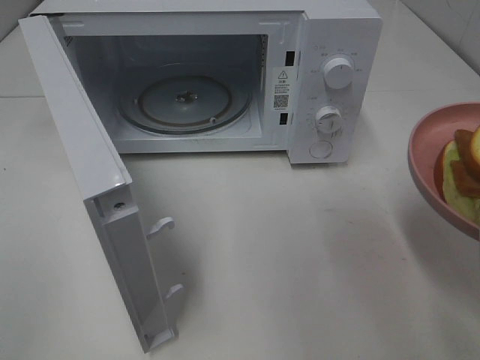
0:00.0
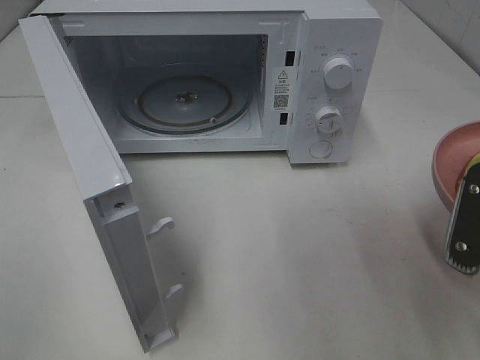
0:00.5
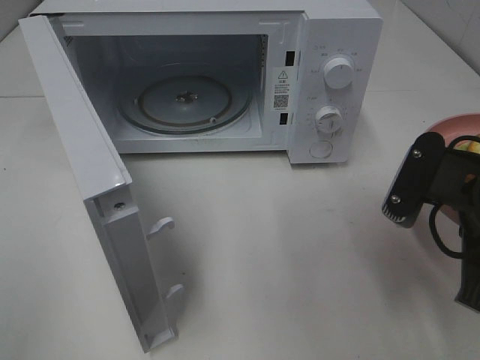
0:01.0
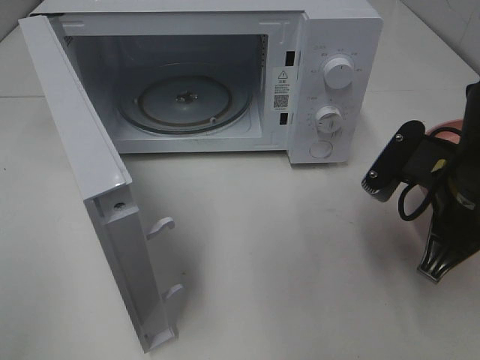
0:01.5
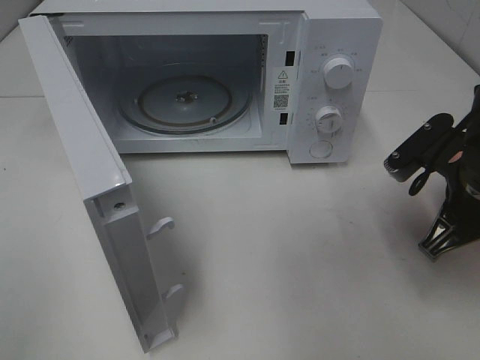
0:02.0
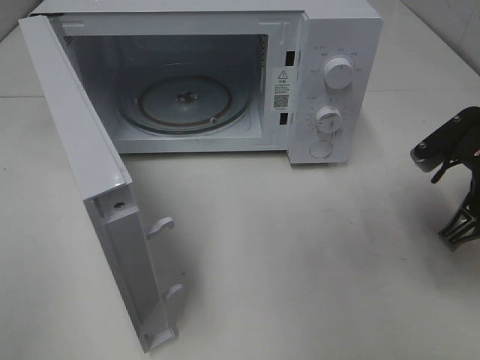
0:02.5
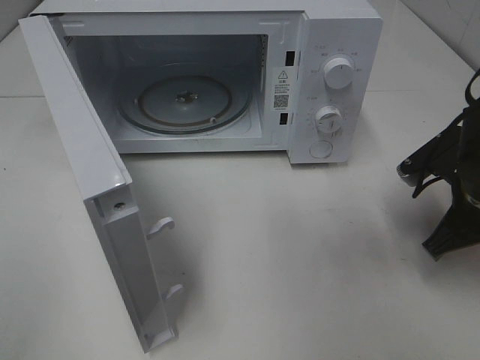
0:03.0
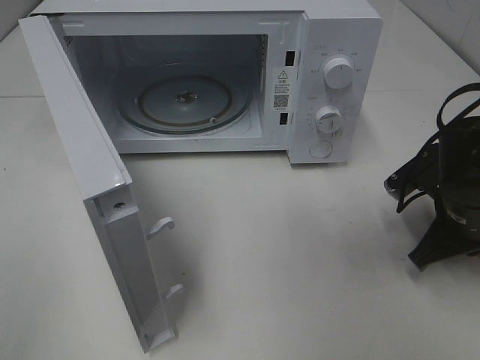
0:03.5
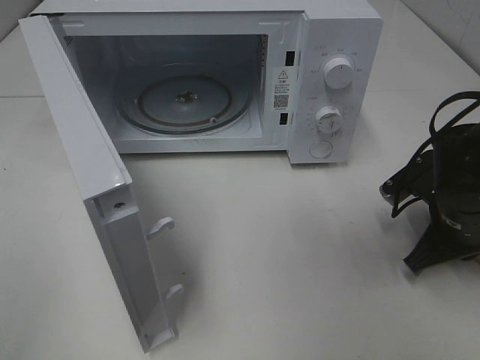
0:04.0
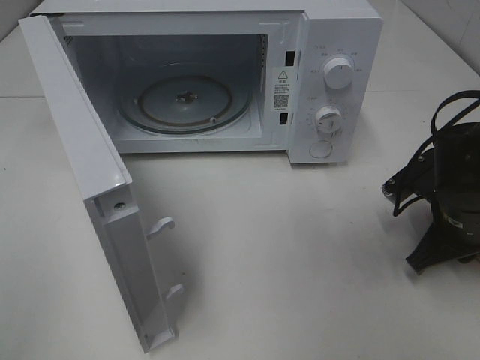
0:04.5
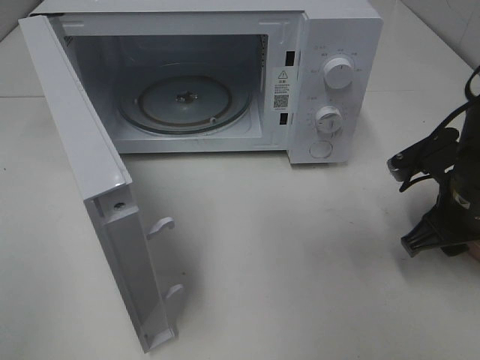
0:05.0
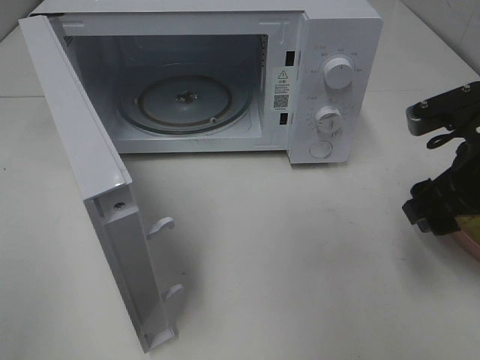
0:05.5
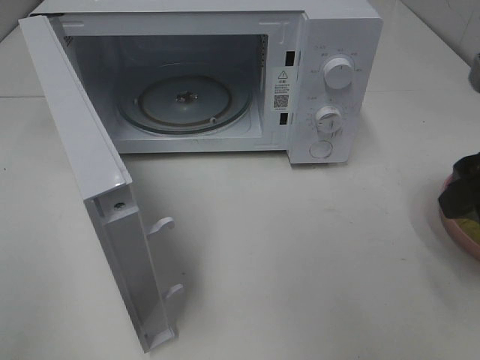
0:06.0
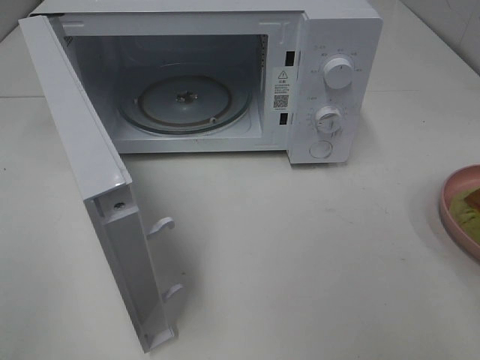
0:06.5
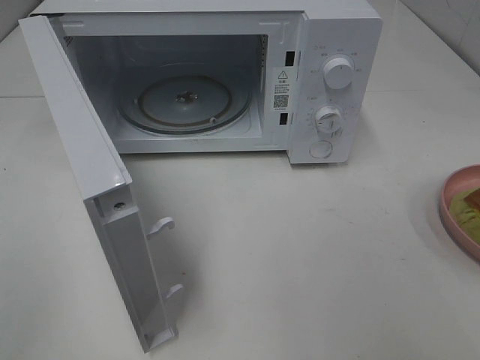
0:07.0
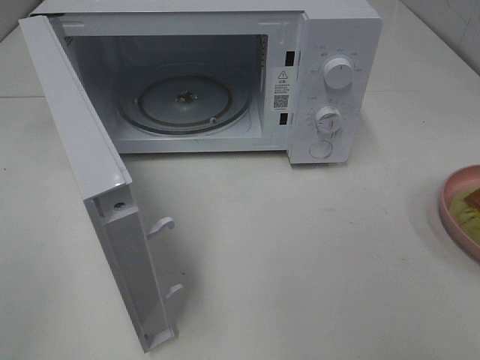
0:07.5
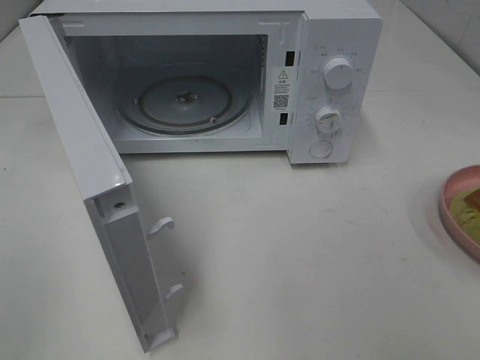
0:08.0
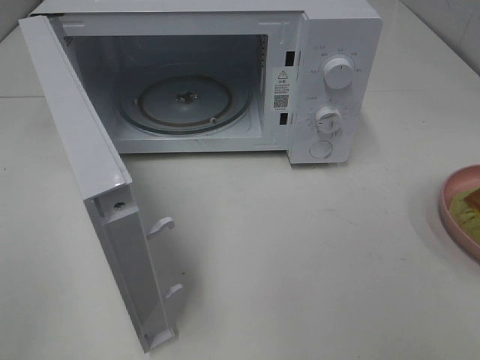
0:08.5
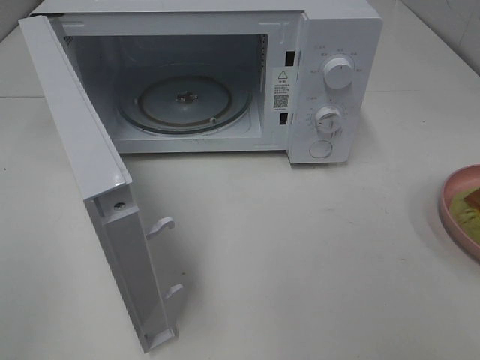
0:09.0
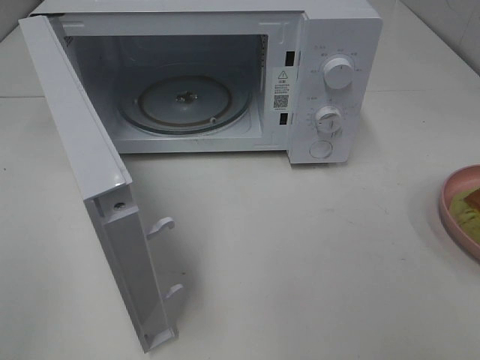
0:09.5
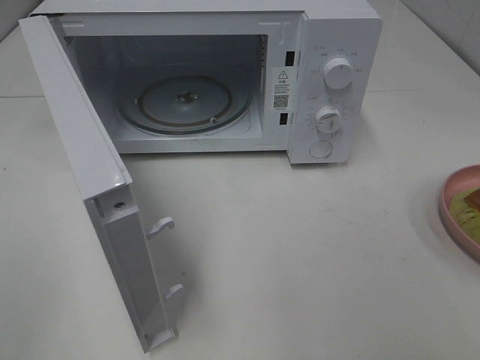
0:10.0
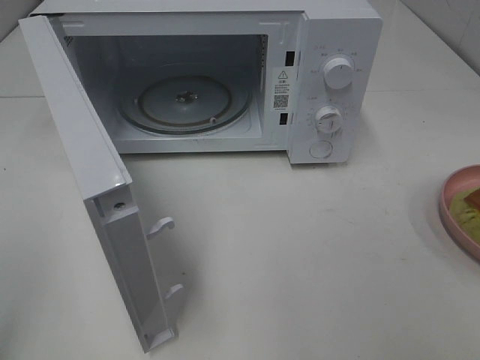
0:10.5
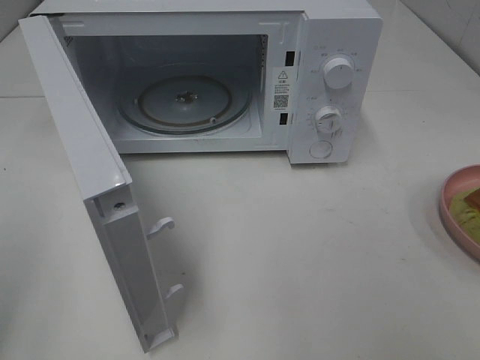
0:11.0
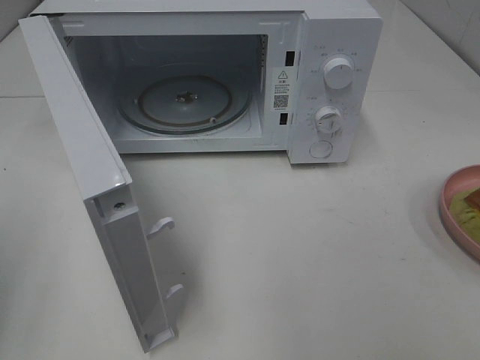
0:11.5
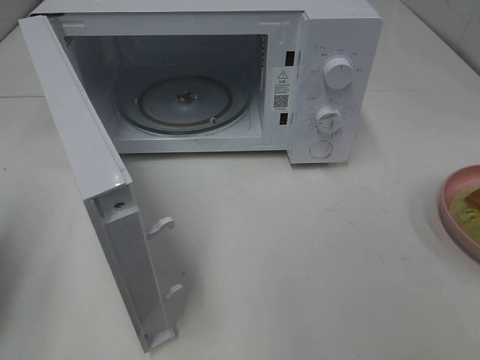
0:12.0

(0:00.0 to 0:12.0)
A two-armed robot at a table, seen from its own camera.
Task of the whole recording: Heat Sandwich.
Step, 0:00.0 - 0:05.5: Right hand: place the plate on the table.
0:00.0 - 0:02.0: The right gripper is displaced forward and downward by about 15 cm.
0:02.0 - 0:04.0: The right gripper moves downward, some 5 cm.
0:04.0 - 0:06.0: The right gripper travels upward and backward by approximately 20 cm, and opens up.
0:06.0 - 0:08.0: The right gripper travels backward by about 20 cm.
0:08.0 - 0:10.0: The two grippers keep their place.
0:10.0 - 0:12.0: The left gripper moves forward and downward, some 20 cm, and closes its fingers.

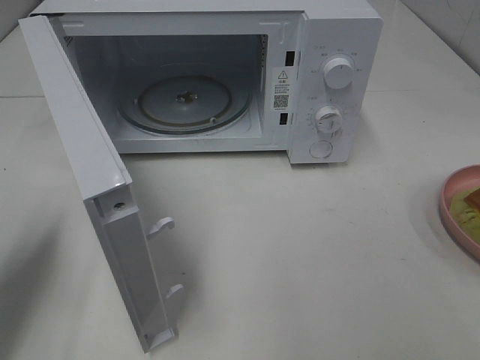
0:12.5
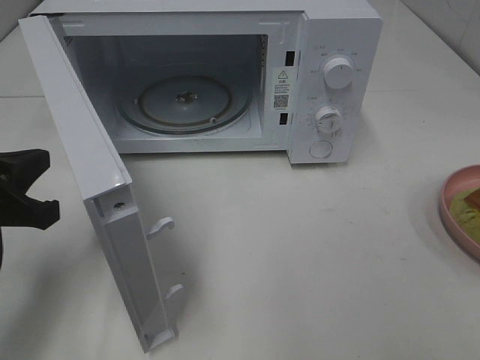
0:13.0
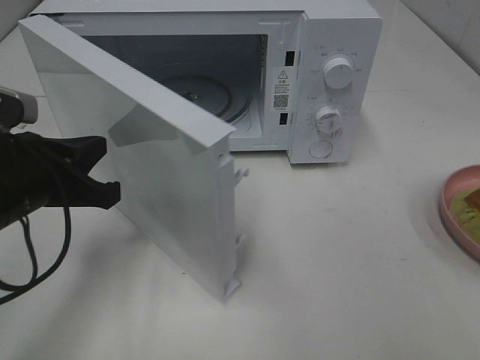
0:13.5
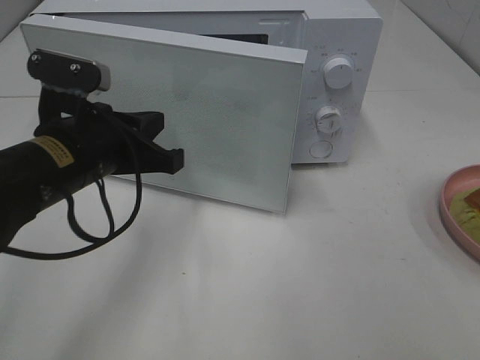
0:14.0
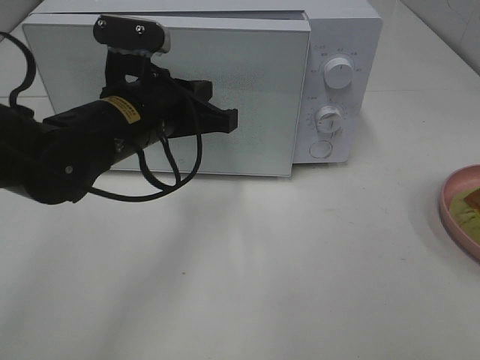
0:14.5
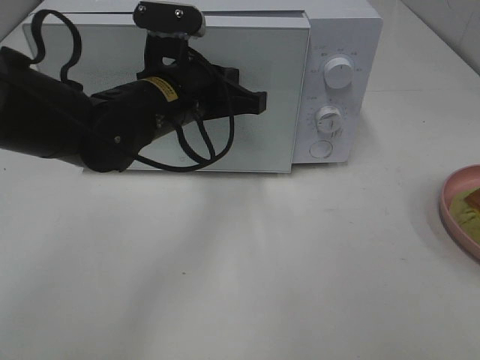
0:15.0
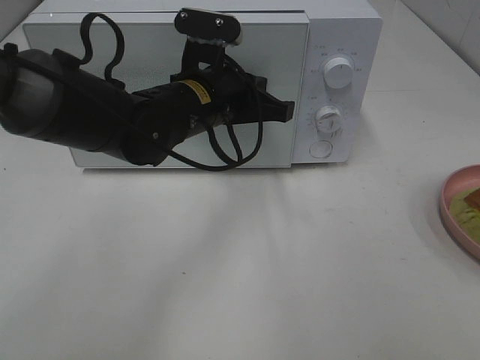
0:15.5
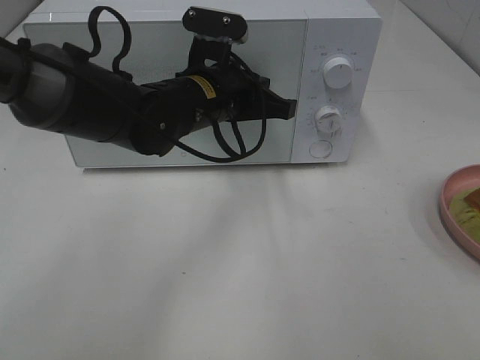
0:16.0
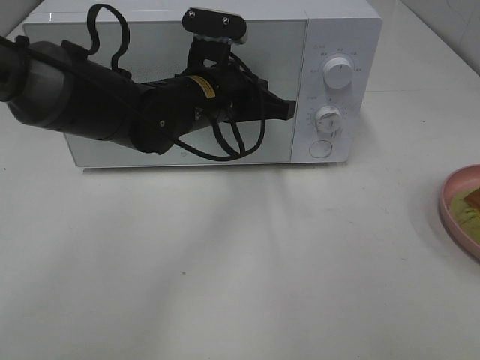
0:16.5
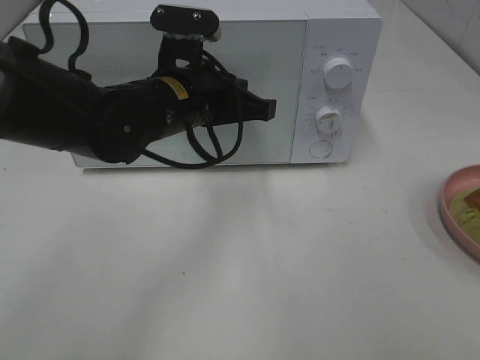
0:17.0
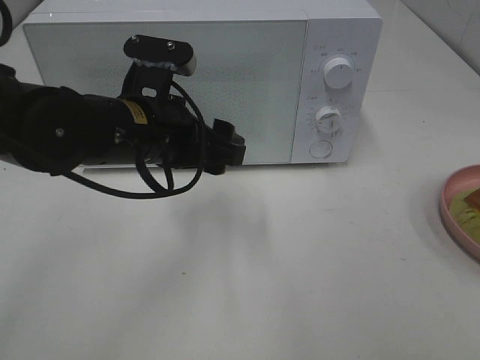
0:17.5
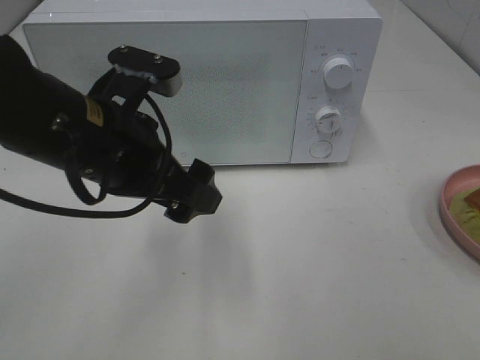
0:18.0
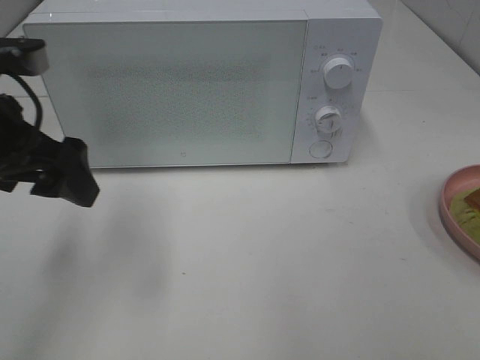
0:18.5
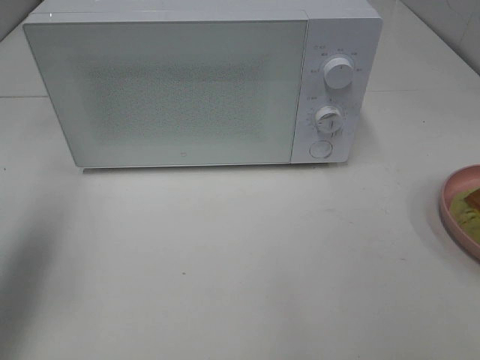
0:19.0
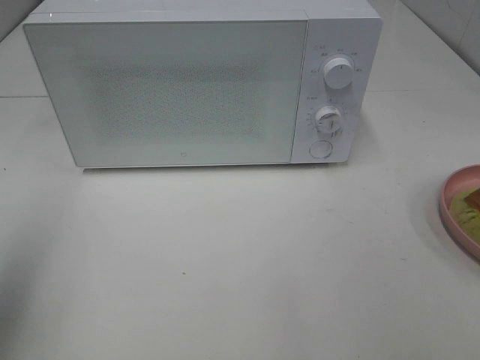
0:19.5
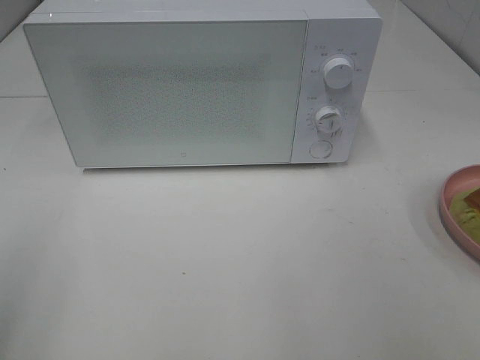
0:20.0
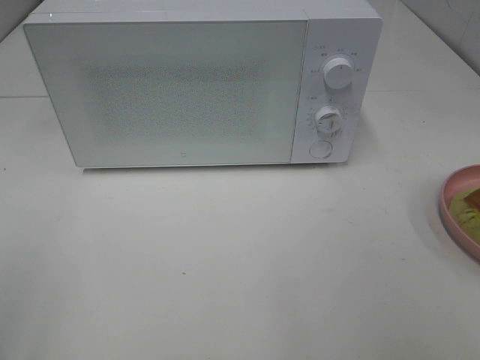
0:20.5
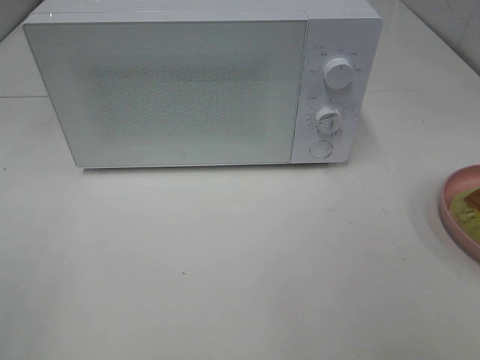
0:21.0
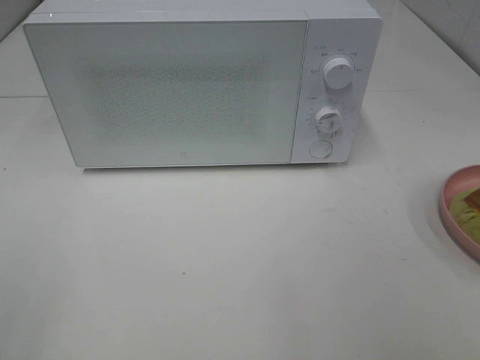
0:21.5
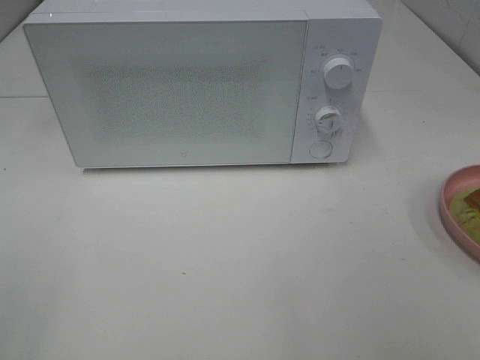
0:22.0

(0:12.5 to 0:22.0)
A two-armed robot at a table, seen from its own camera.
Task of the whole recording: Heat Sandwich.
Step, 0:12.5 - 0:16.5: Left hand: close the microwave door.
0:12.5 - 0:14.5: The left gripper is displaced to the right and forward by approximately 25 cm.
0:14.5 - 0:16.5: The left gripper is displaced to the right and forward by approximately 10 cm.
0:16.5 - 0:18.0: The left gripper heads backward and to the left, covering some 15 cm, and opens up.
0:18.0 - 0:20.0: The left gripper shifts some 25 cm to the left and backward.

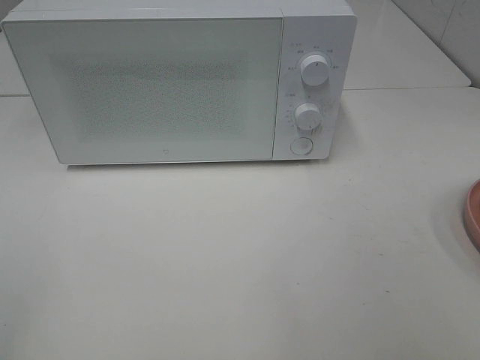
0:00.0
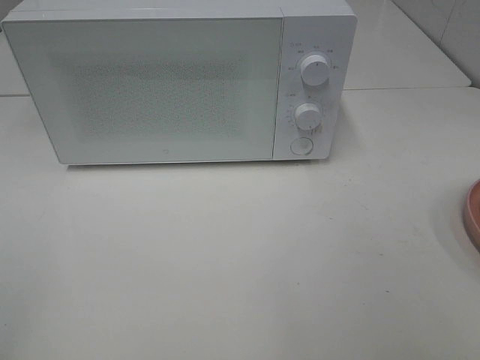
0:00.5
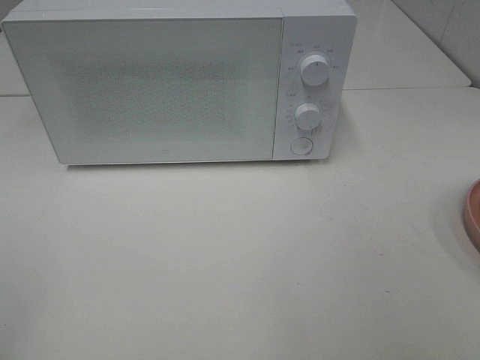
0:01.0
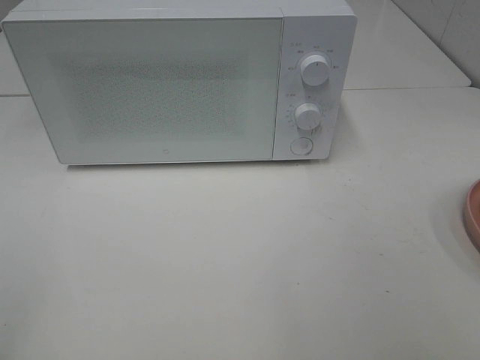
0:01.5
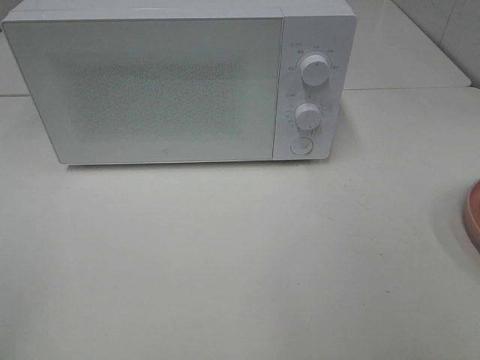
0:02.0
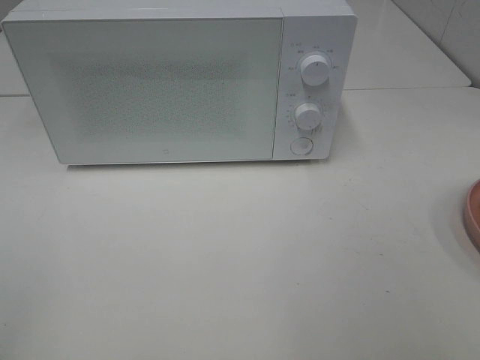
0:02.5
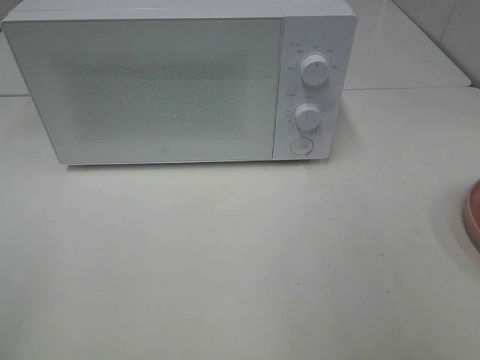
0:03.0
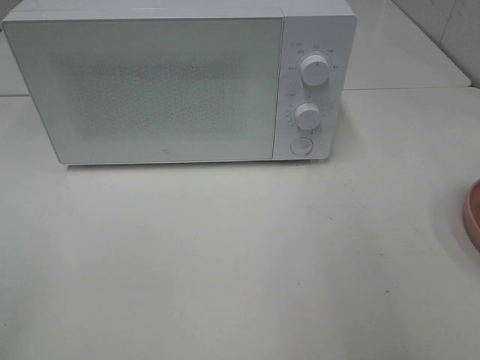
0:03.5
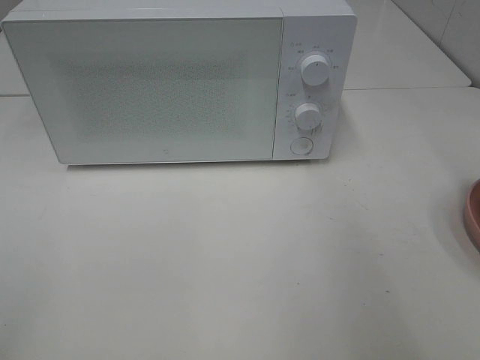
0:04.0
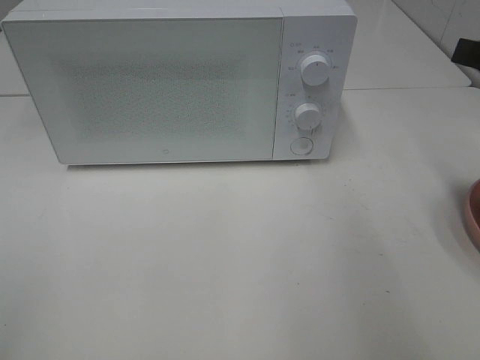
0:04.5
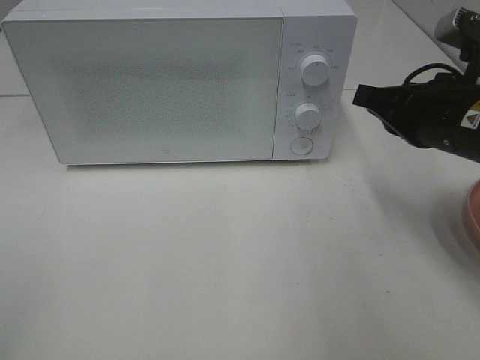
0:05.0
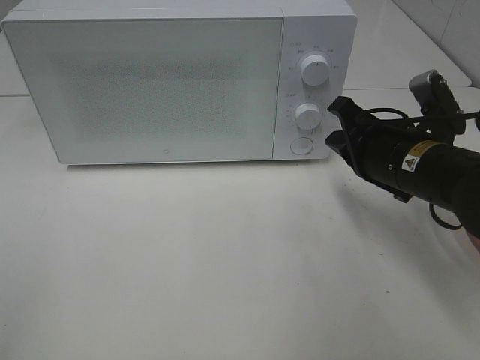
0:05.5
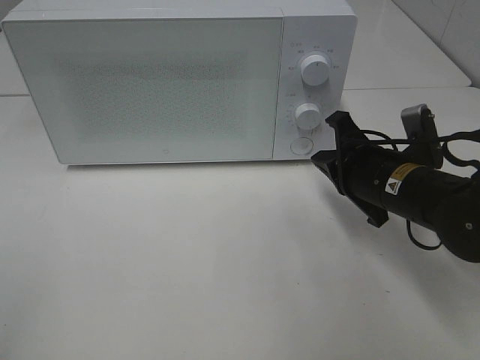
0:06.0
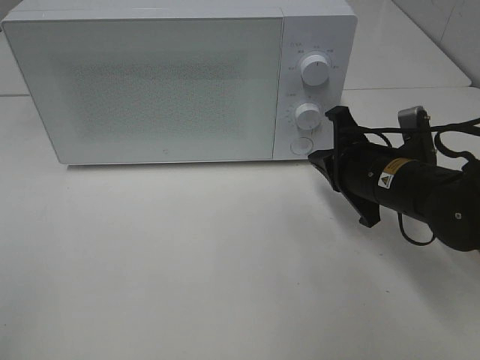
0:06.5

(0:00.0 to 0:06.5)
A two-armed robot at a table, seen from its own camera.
Task of the whole recording: Heat Sandwich.
0:00.0 - 0:02.0: Both grippers stay put.
0:02.0 - 0:04.5: The right gripper shifts approximately 25 cm forward, and closes its fingers.
0:04.5 - 0:06.5: The right gripper is displaced downward and to the left by some 20 cm.
